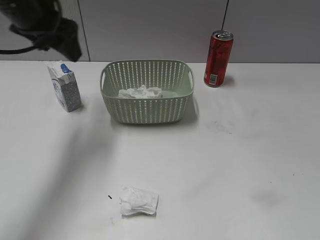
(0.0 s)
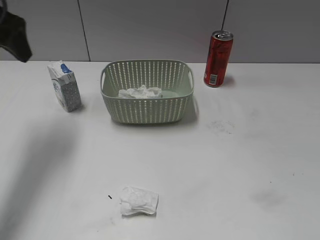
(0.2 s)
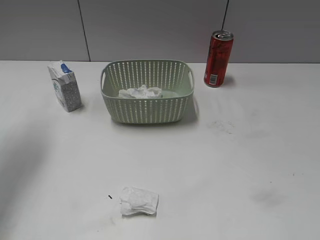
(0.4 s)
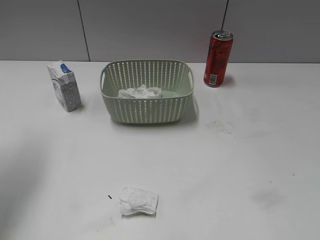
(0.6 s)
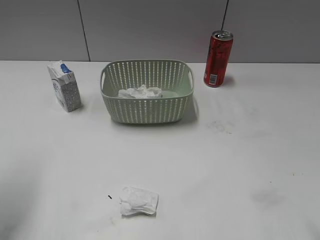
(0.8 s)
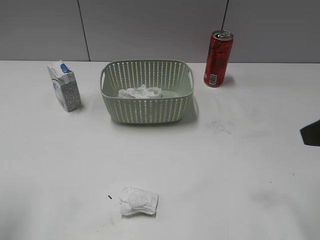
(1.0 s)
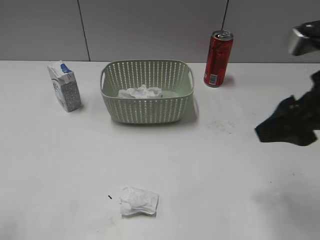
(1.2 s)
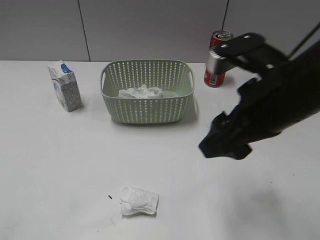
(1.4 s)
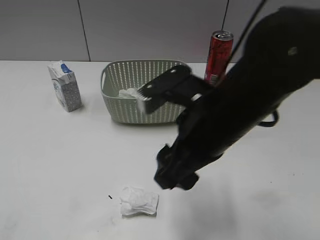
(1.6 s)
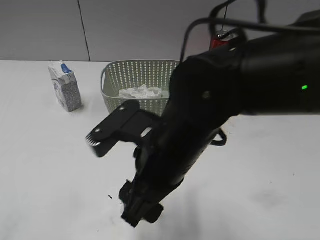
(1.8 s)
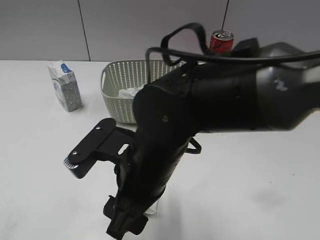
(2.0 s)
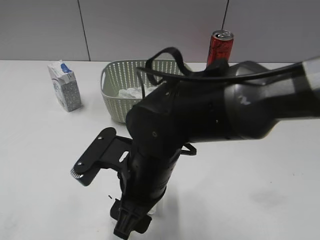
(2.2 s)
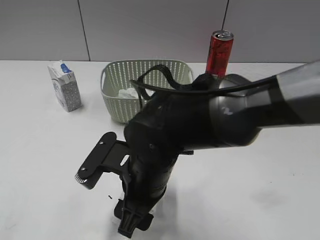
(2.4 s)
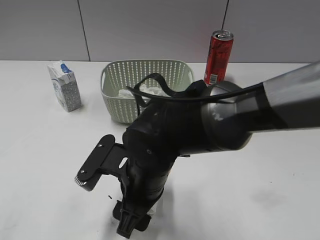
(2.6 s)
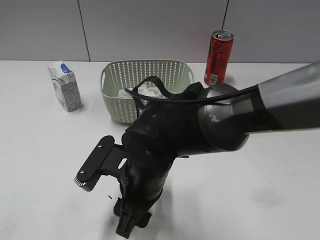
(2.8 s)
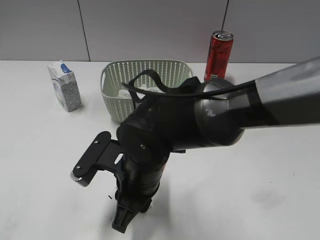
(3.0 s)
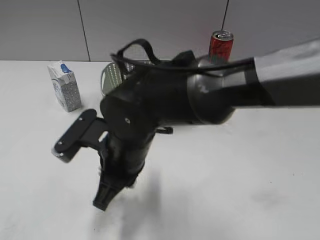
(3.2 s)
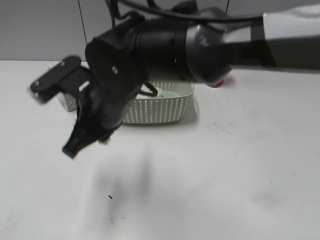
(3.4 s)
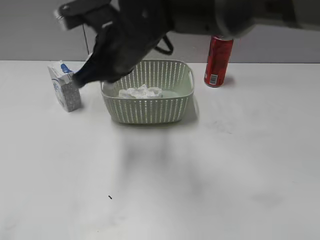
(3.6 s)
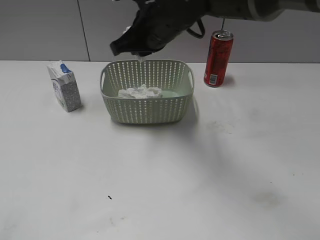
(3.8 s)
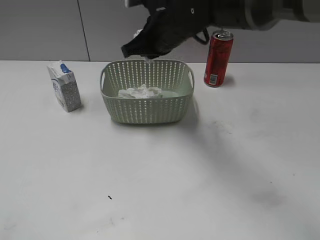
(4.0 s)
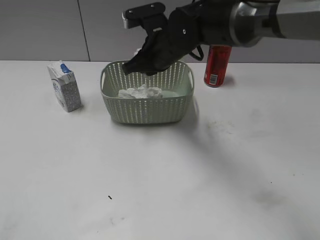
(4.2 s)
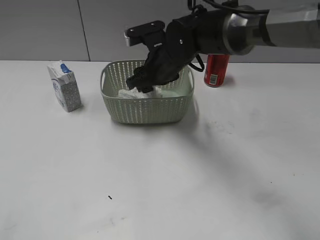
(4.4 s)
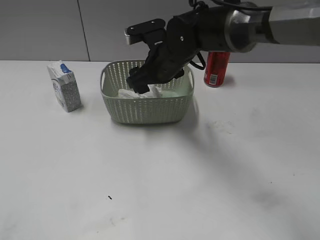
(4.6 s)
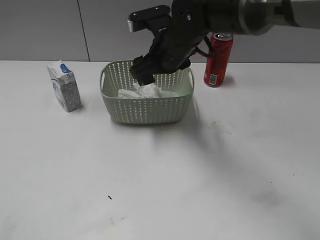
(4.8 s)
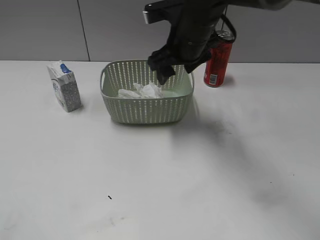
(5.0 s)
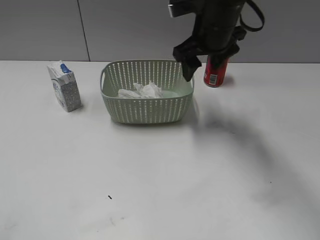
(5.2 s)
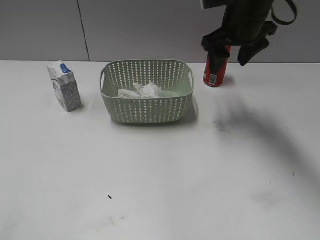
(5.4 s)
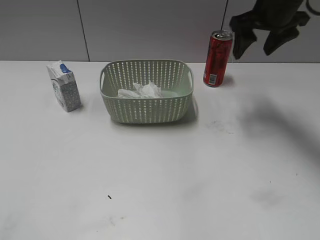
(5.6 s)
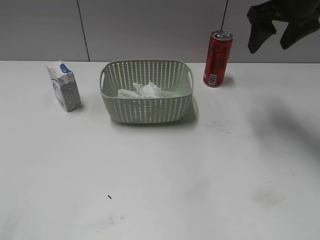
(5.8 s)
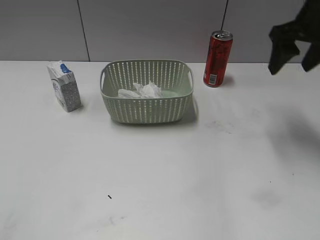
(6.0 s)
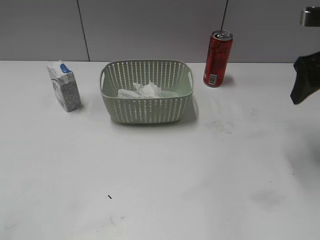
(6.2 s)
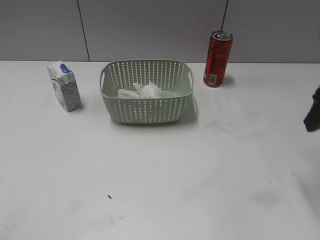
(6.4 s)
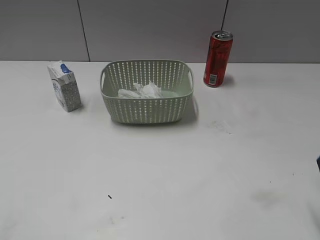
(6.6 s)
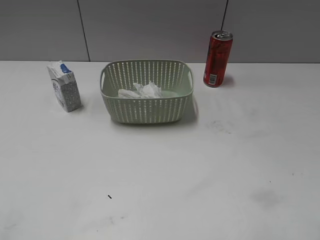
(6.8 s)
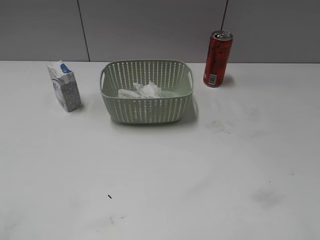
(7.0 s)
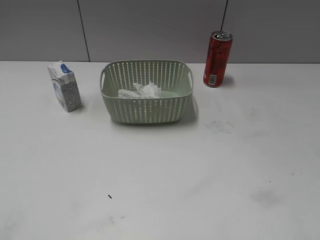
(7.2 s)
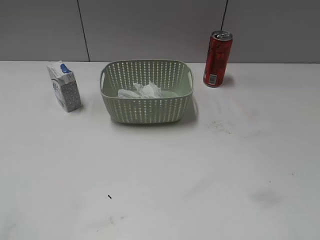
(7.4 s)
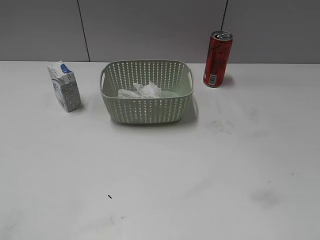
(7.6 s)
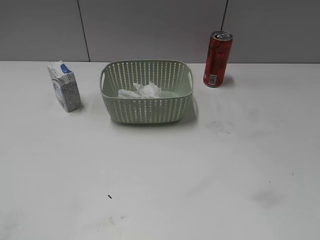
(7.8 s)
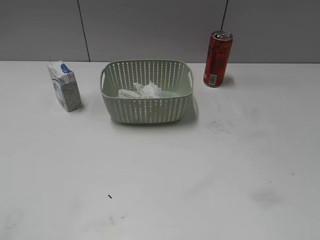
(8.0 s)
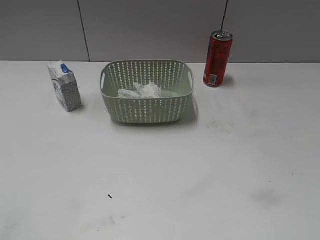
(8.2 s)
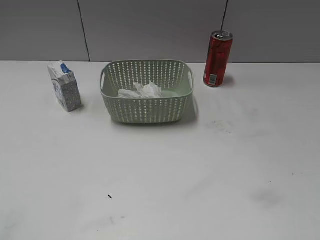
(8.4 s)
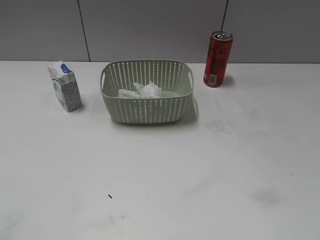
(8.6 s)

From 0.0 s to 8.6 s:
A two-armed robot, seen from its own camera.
Step, from 0.0 s to 3.0 s: Grasp the waste paper with right gripper.
Step, from 3.2 s to 4.8 s: Place the waste paper in the basket with right gripper.
From 0.0 s to 1.4 s: The left gripper heads backward, covering approximately 30 cm; the right gripper goes roughly 25 cm forward and to the left.
From 1.4 s to 2.8 s: The right gripper shifts approximately 20 cm to the left and downward. The left gripper heads backward, covering approximately 5 cm.
From 2.8 s to 4.4 s: The right gripper moves forward, some 20 cm, and closes, then reopens.
From 4.4 s to 5.8 s: The right gripper travels to the right and upward by about 25 cm.
From 5.8 s to 7.2 s: The right gripper moves backward, roughly 30 cm.

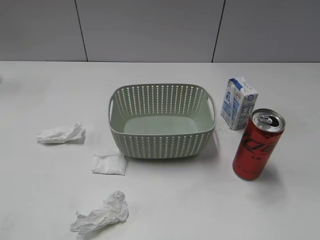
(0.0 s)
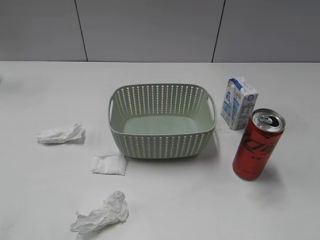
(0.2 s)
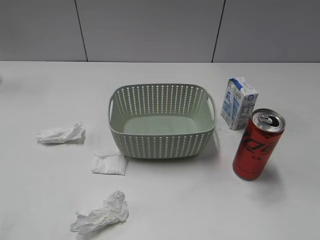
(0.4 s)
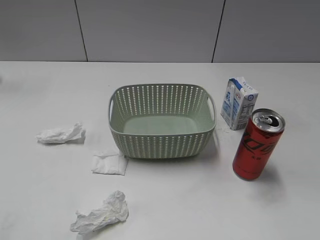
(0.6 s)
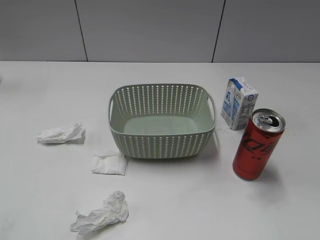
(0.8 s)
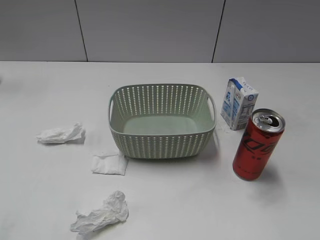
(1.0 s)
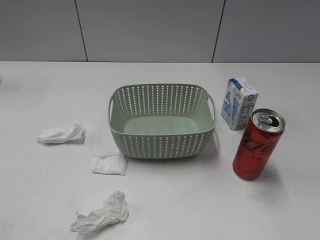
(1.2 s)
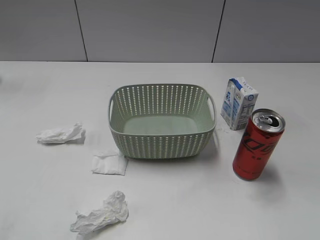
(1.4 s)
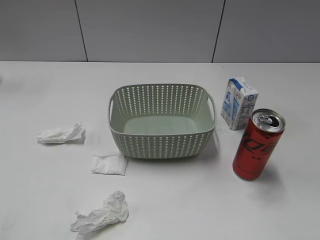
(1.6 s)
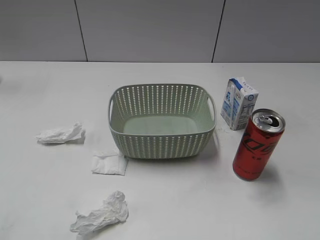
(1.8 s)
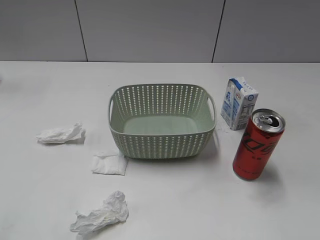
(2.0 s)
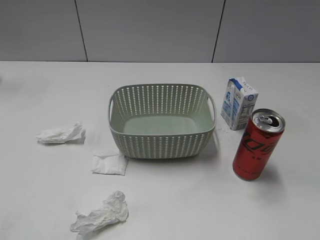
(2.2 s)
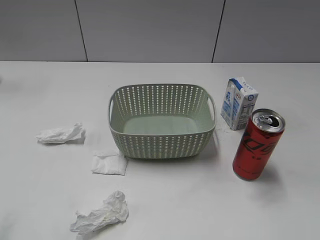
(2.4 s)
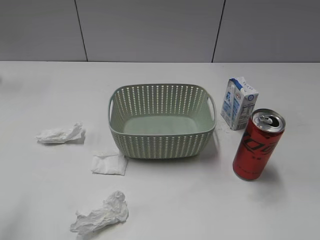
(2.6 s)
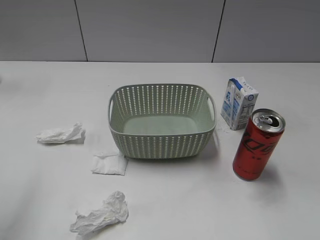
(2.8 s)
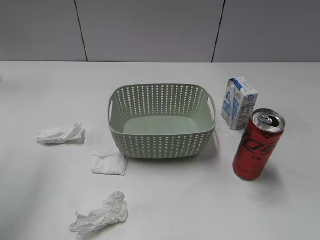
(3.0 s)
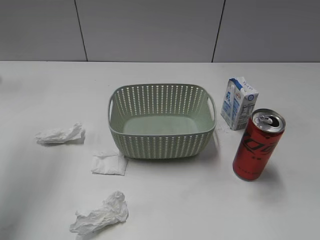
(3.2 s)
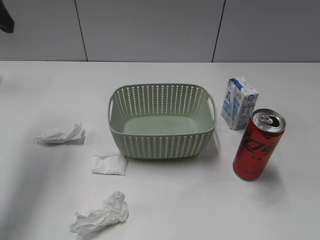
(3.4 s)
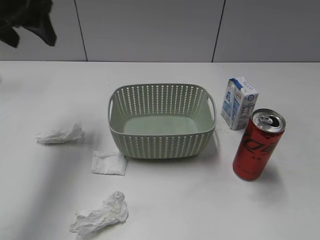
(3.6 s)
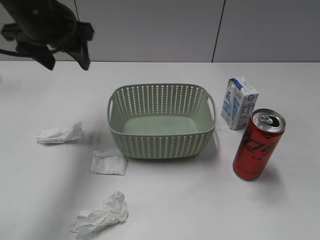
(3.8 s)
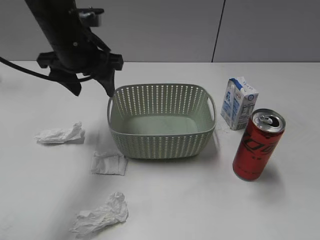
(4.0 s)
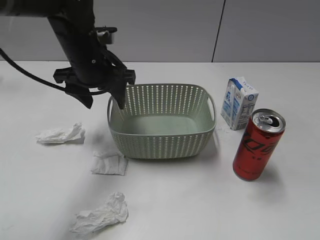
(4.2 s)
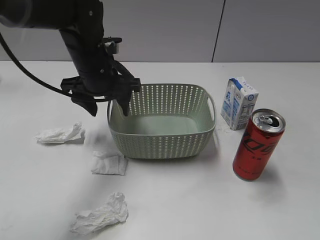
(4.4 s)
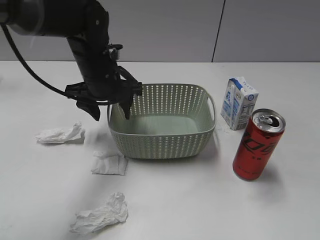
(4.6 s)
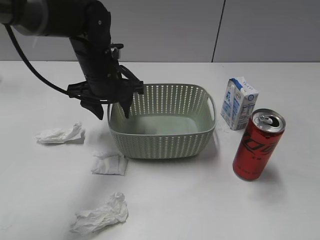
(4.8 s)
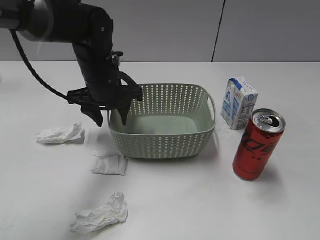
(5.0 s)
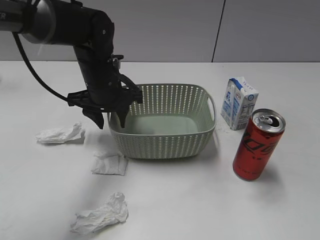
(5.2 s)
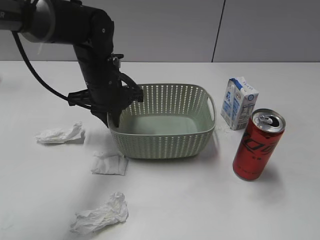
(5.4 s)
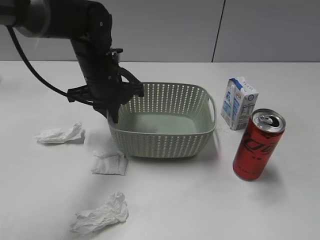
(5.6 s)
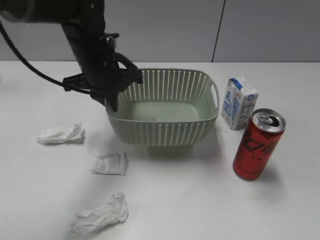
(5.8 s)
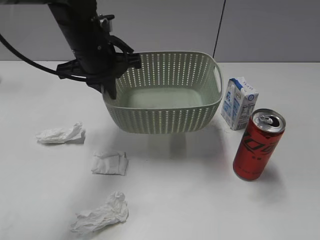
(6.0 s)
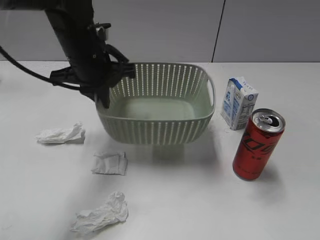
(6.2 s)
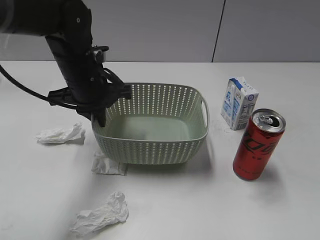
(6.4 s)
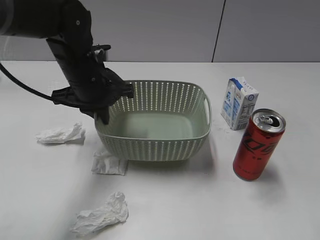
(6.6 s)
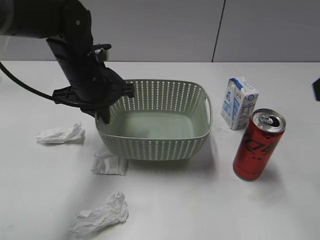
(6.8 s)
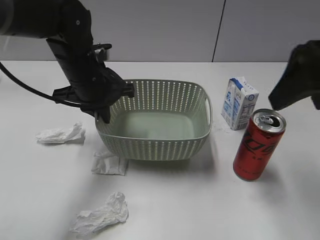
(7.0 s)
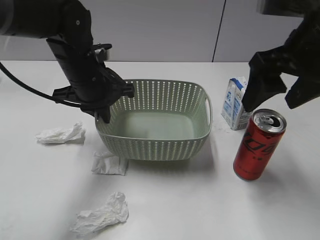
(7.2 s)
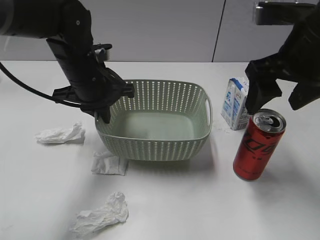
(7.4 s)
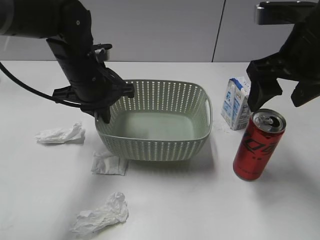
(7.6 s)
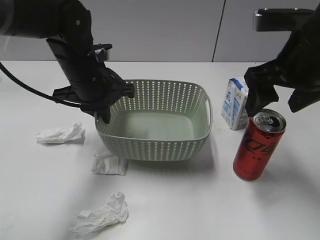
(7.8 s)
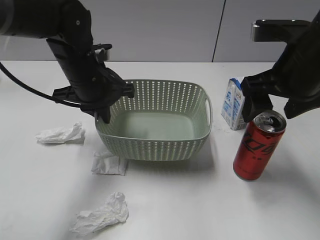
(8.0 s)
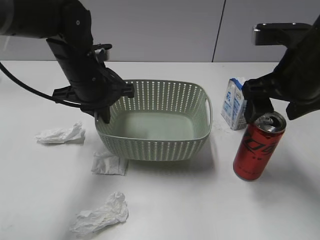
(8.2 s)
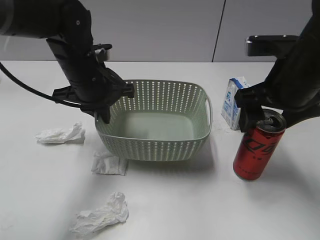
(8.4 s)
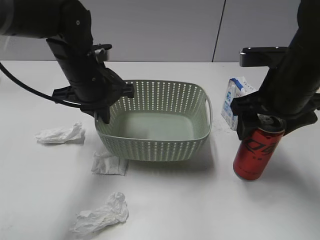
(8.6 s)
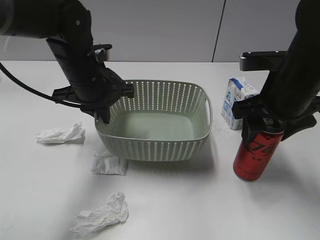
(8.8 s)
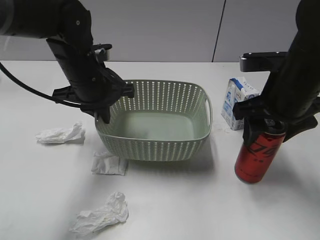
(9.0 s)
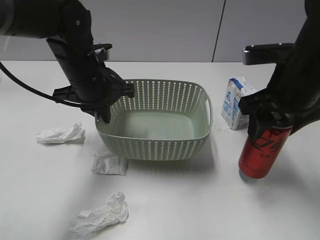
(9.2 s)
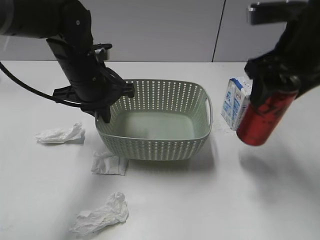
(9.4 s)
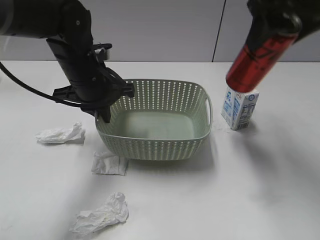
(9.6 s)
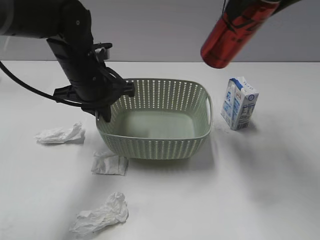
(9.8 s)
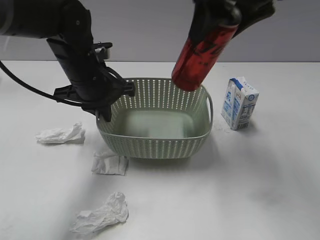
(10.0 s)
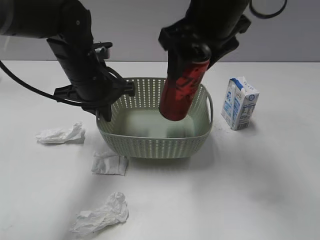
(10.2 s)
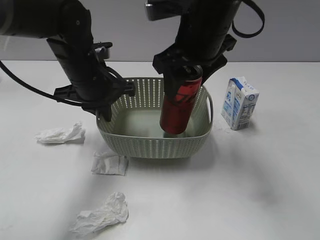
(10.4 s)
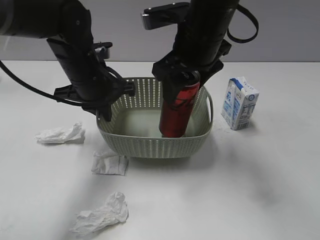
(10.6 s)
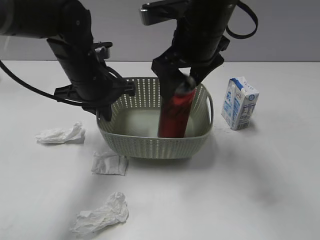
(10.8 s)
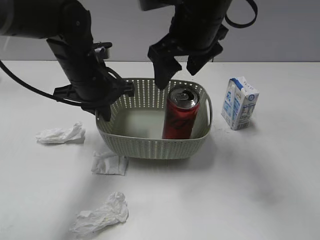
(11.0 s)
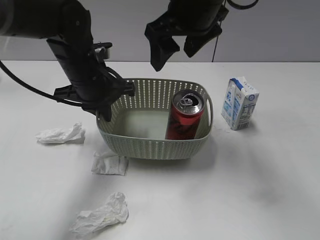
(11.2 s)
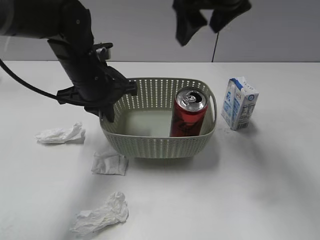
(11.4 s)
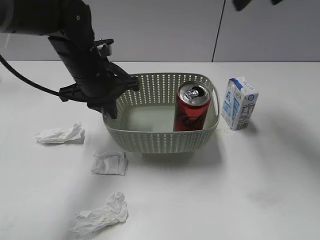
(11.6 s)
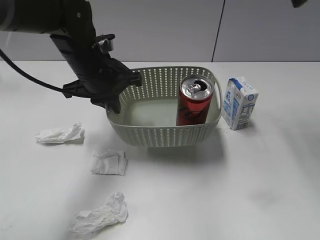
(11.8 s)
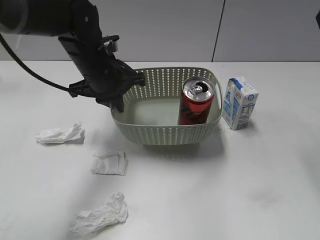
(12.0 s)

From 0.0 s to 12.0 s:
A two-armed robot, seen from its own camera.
Step, from 3.4 s to 5.6 s: Grasp the basket with left gripper.
Step, from 5.8 s to 6.6 s: Lift the basket with left gripper.
Step, from 6.8 s to 8.8 s: Grasp the cola can with right gripper.
Step, from 9.0 s to 11.0 s: Place the cola can in the basket with right gripper.
From 1.6 s to 3.0 s: The left gripper heads forward and upward, covering roughly 25 cm.
From 3.0 s to 4.4 s: The left gripper travels to the right, downward and forward by roughly 30 cm.
From 4.4 s to 6.0 s: The left gripper closes its fingers.
From 6.0 s to 7.6 s: The right gripper heads forward and to the left, covering roughly 30 cm, and opens its fingers.
From 7.6 s to 9.0 s: The right gripper goes approximately 5 cm downward, and closes its fingers.
From 9.0 s to 10.4 s: The right gripper goes approximately 10 cm to the left, and travels upward and back again, approximately 15 cm each way.
From 10.4 s to 12.0 s: The right gripper shifts some 25 cm to the right and upward, and opens.

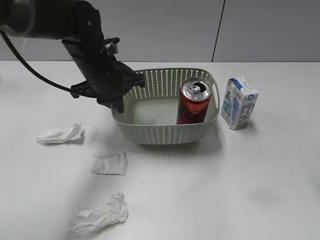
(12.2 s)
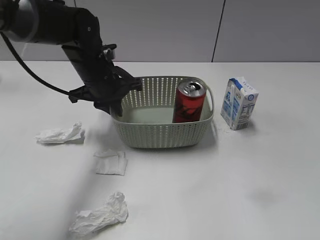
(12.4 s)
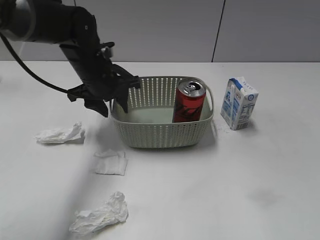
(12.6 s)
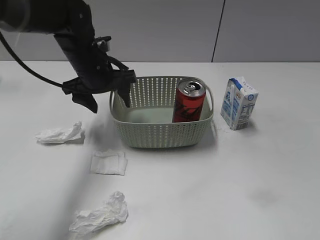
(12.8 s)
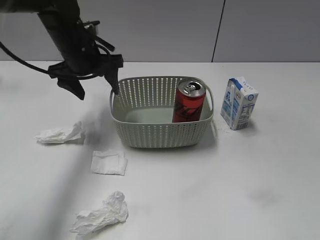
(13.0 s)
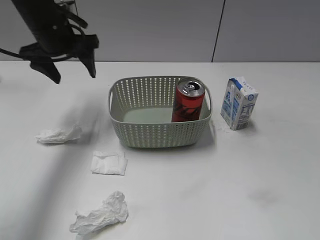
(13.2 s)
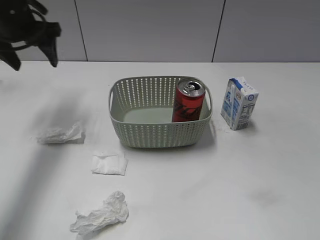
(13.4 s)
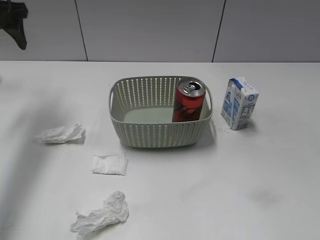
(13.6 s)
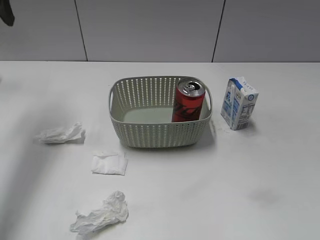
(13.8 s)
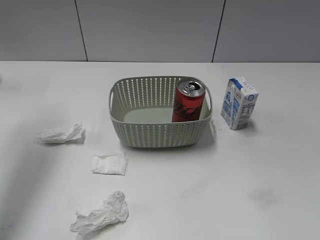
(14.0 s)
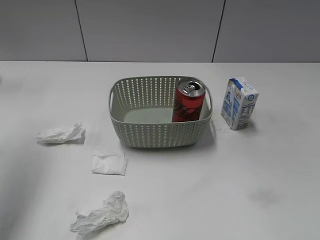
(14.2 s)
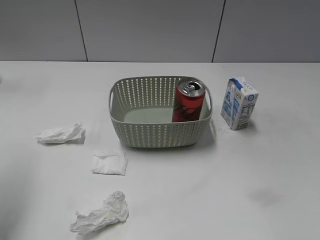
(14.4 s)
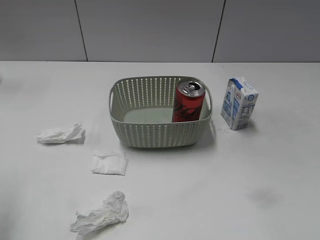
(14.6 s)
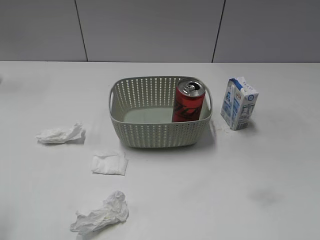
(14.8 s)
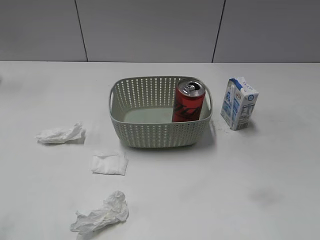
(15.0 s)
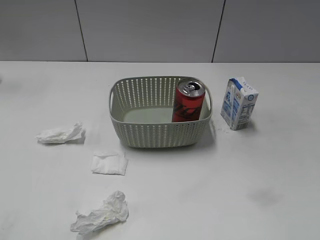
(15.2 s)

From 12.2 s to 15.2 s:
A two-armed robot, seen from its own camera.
From 12.2 s to 13.8 s: The right gripper is displaced backward and downward by roughly 25 cm; the left gripper moves to the left and upward, about 25 cm, and opens up.
From 13.8 s to 15.2 s: The left gripper is displaced backward by some 30 cm.
